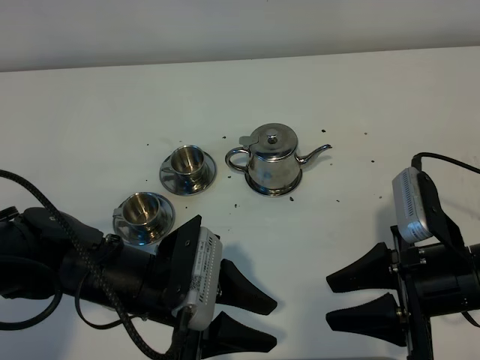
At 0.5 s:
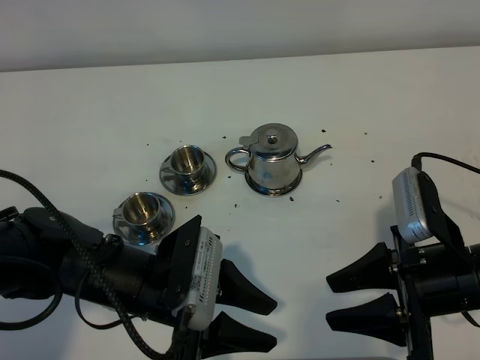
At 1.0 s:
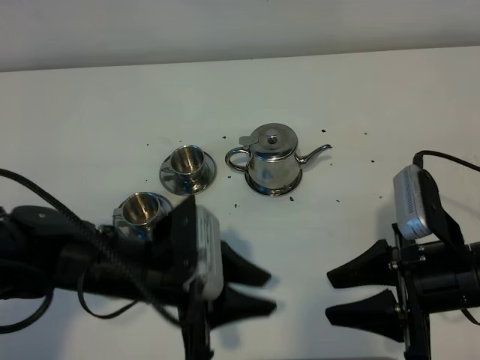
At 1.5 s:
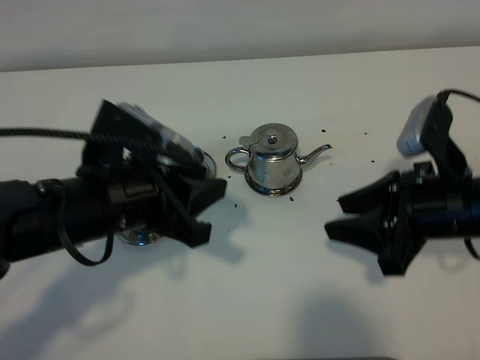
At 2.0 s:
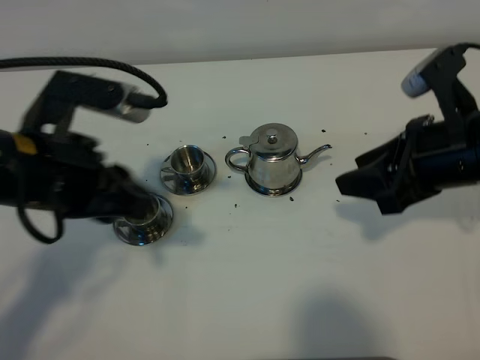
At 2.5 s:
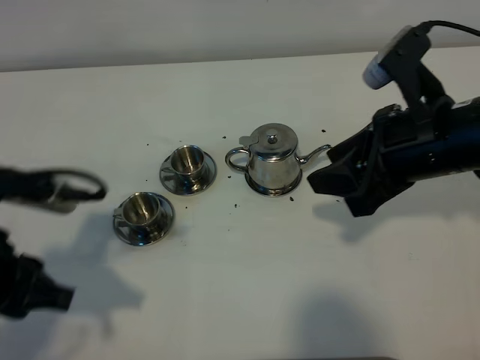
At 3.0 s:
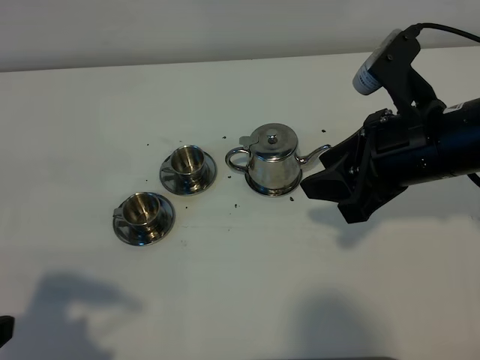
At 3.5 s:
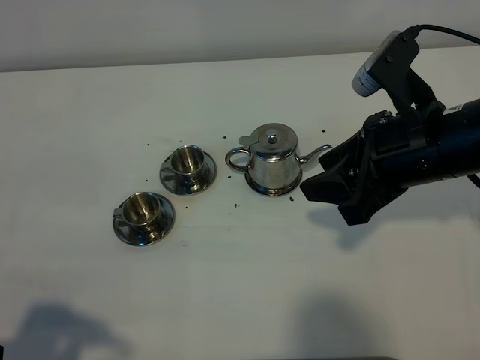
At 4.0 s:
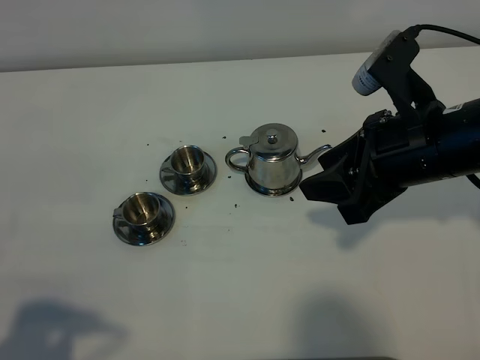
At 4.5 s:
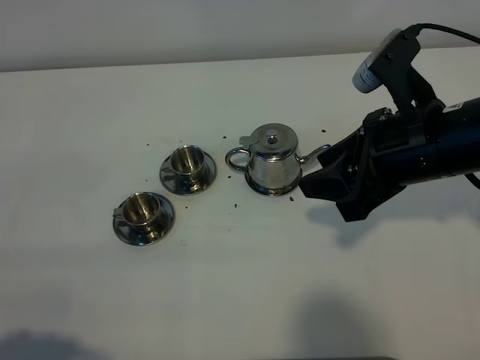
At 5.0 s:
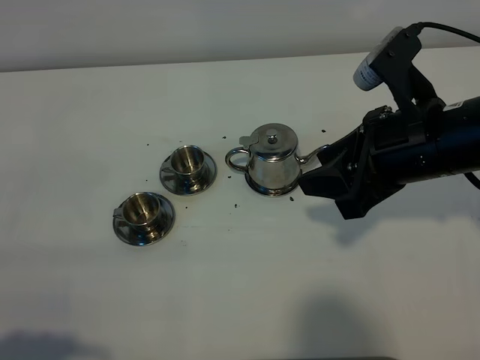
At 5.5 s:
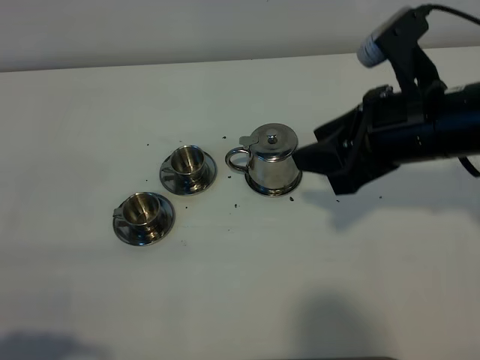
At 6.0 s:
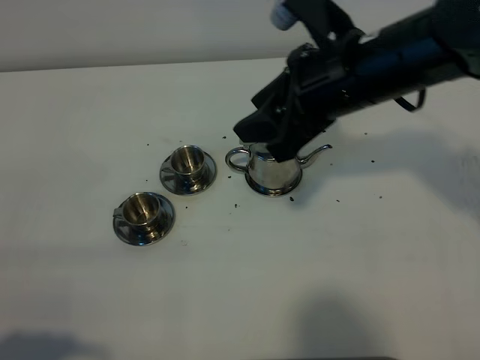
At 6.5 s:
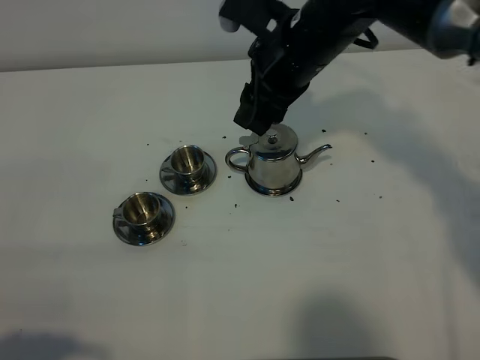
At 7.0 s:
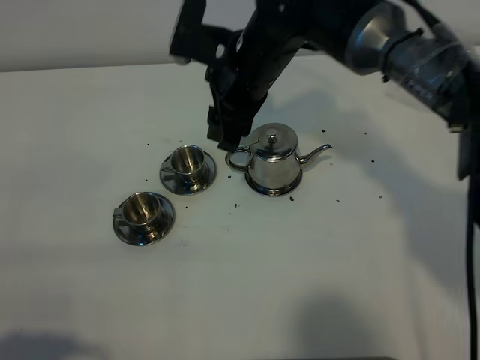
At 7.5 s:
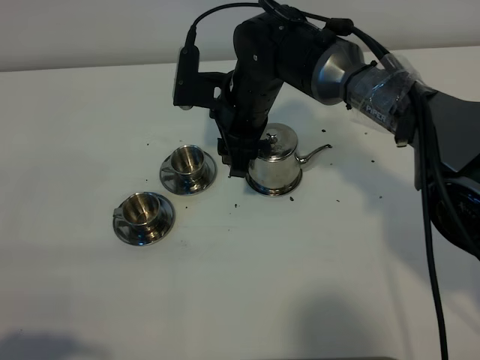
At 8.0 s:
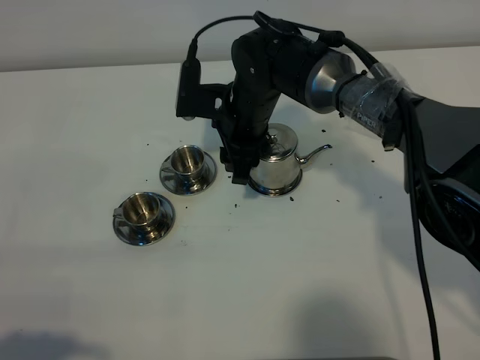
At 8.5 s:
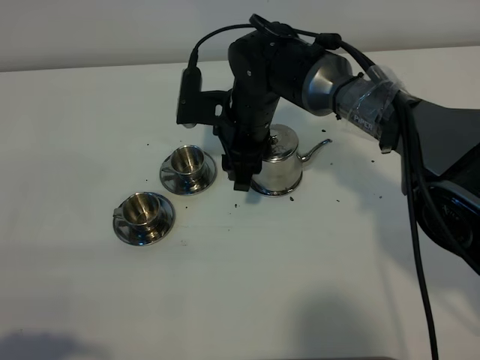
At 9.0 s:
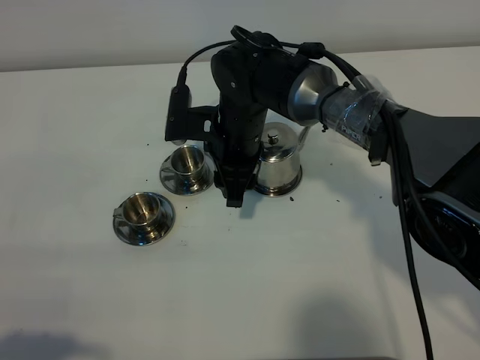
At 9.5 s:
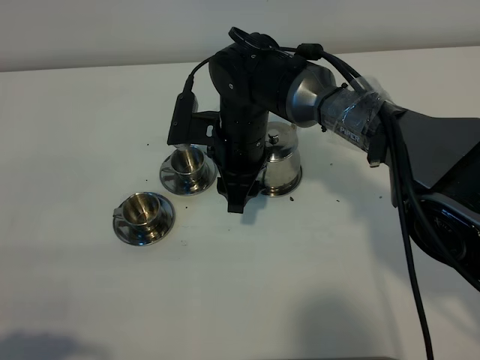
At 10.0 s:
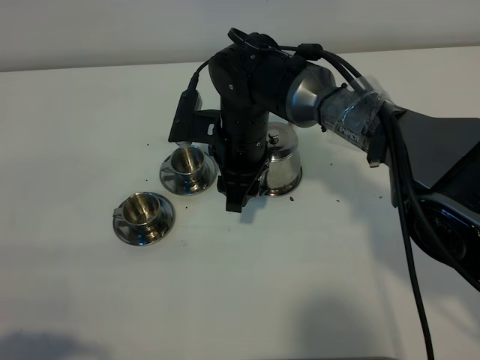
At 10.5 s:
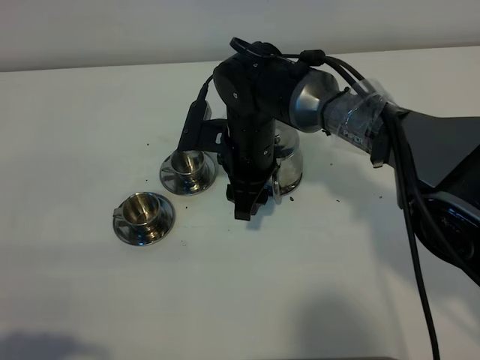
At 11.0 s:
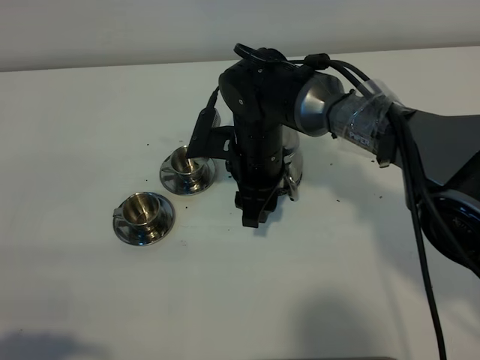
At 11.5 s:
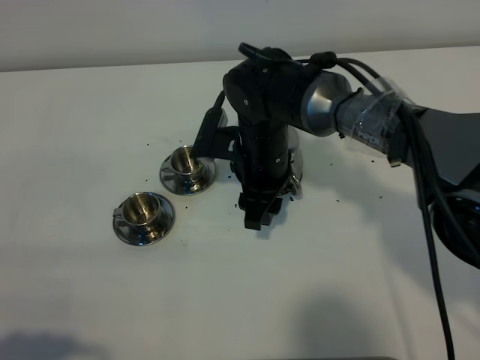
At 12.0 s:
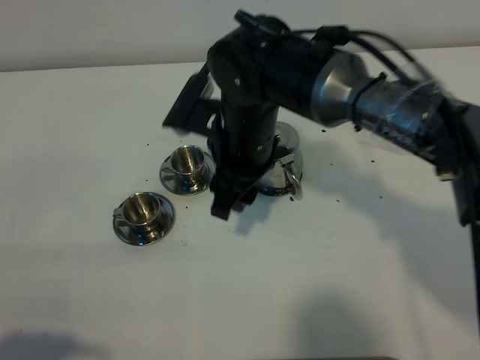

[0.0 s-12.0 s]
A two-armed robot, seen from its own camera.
Task of the whole recording: grasp the stainless steel teapot and pour the tea into the two stainless steel teacups one by one, put the stainless steel teapot back in its original place.
0.0 to 2.0 s: The right gripper is displaced forward and upward by about 10 cm; the left gripper travels upward, to the left and forward by roughly 15 cm.
2.0 to 4.0 s: The left gripper travels backward and to the left by some 20 cm.
4.0 to 6.0 s: The right gripper shifts approximately 10 cm to the left and forward.
6.0 to 8.0 s: The right gripper is displaced downward, to the left and forward by some 20 cm.
8.0 to 10.0 s: There are only small adjustments of the grippers.
10.0 to 12.0 s: The right gripper goes some 5 cm upward.

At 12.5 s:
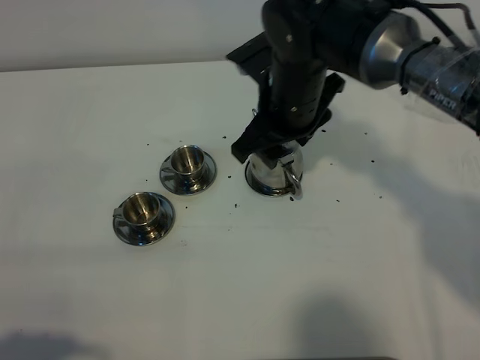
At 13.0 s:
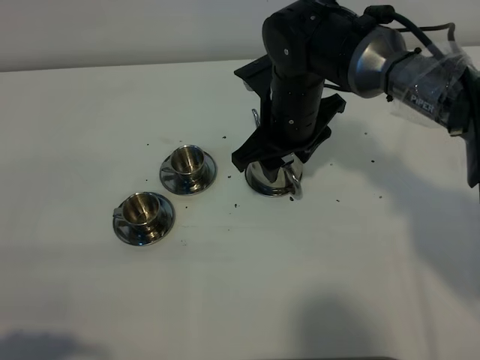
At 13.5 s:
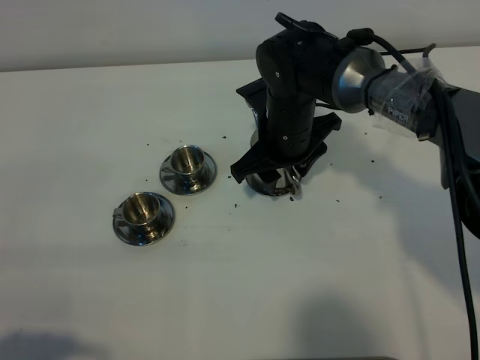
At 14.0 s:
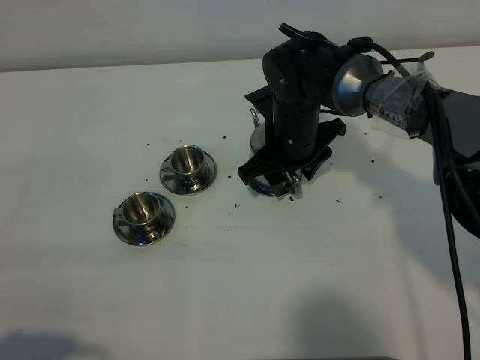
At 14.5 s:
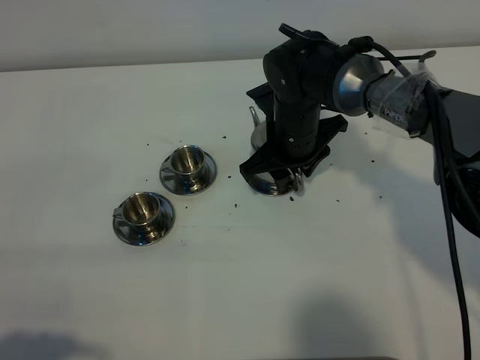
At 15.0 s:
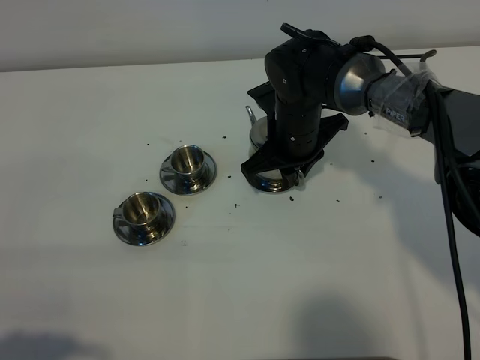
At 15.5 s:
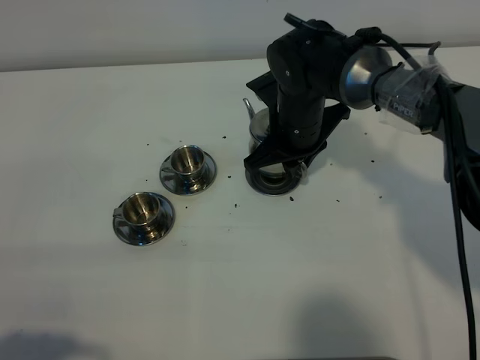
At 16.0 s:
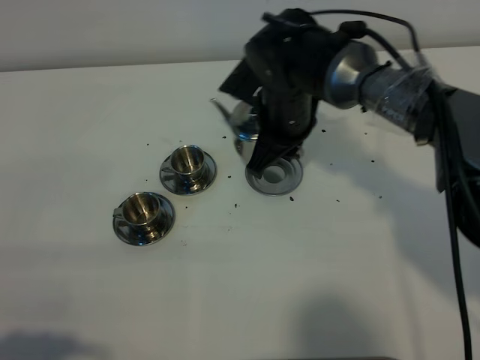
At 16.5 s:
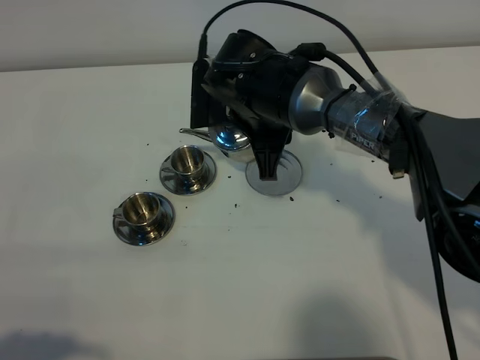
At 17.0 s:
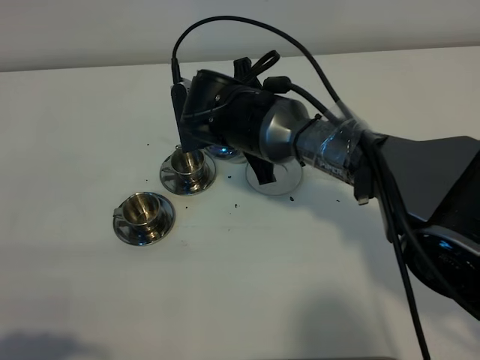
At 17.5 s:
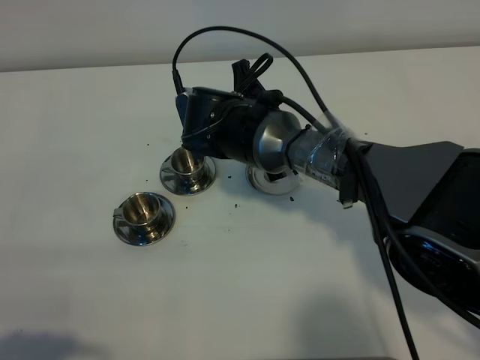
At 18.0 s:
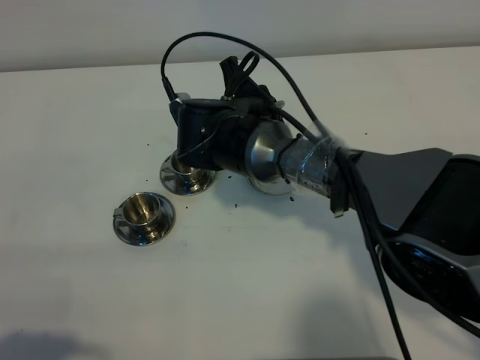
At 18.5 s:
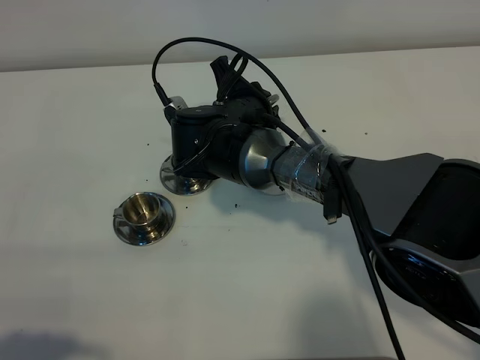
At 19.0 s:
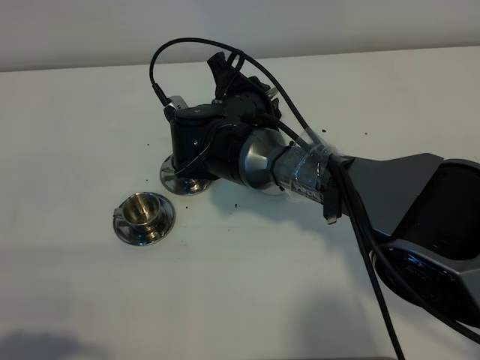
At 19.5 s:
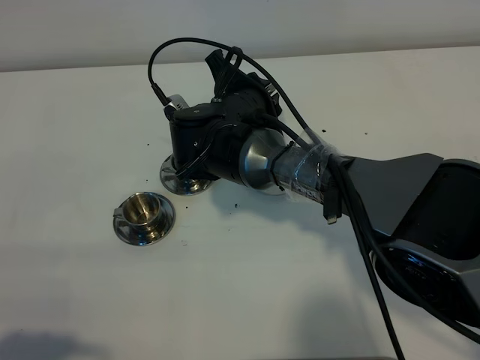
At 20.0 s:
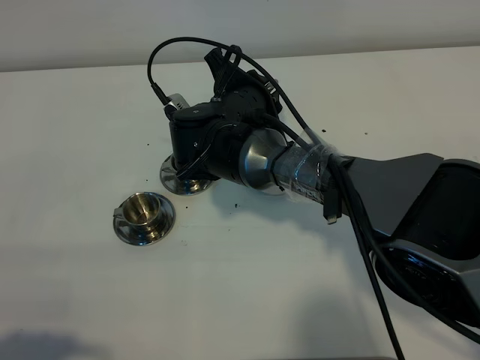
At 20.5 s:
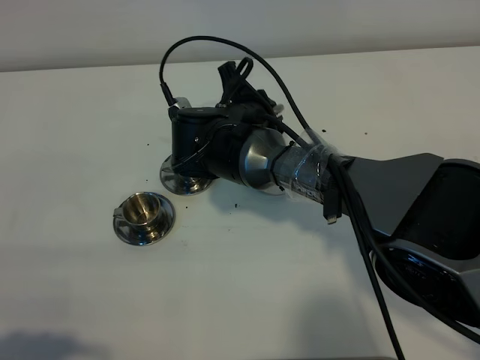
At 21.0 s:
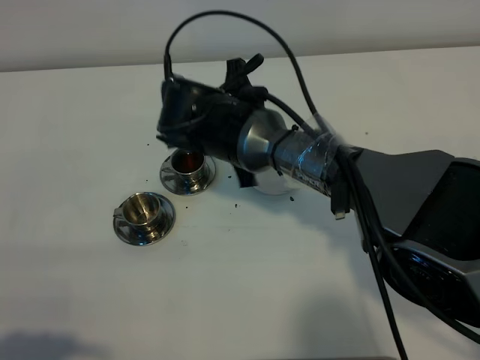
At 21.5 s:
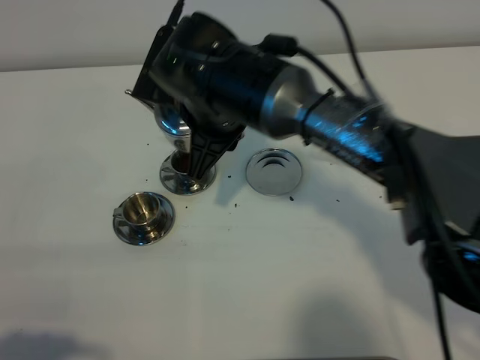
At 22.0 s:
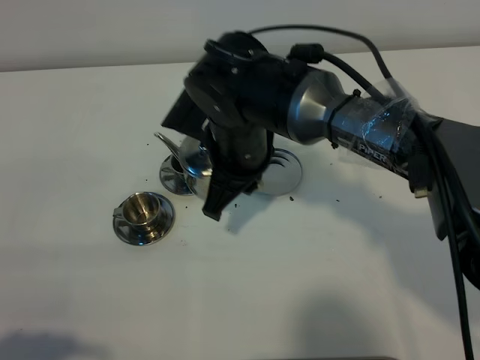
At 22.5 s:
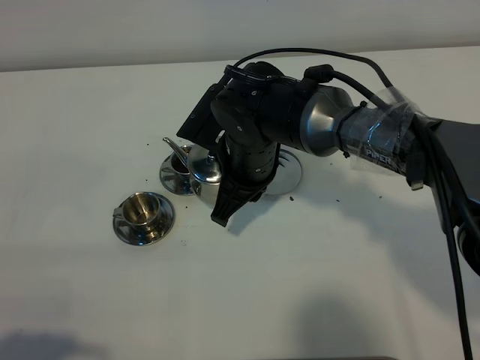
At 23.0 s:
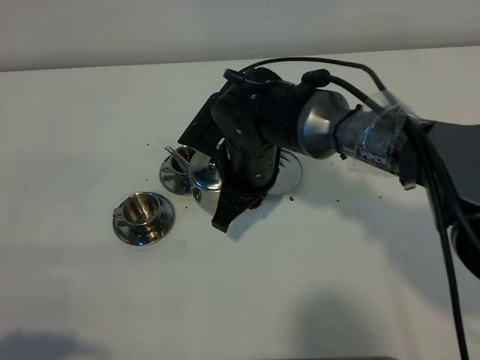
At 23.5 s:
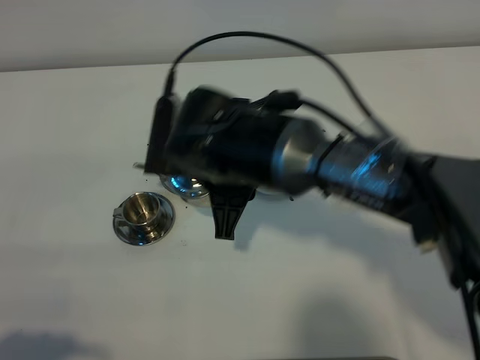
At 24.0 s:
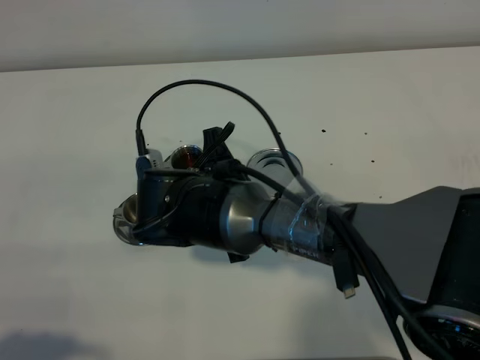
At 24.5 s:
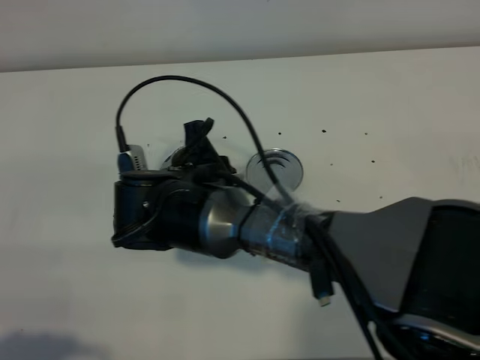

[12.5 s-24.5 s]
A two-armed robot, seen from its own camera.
Task of the whole recording: grasp the stainless steel teapot and pour the tea into the two stainless steel teacups one by one, put the stainless steel teapot back in its original place.
Step, 12.5 to 15.5 s: Pick up the teapot with the right gripper.
Step, 16.0 to 20.5 s: Pour tea into the teacup with the right gripper.
12.5 to 14.5 s: The right gripper moves downward, approximately 10 cm.
14.5 to 16.5 s: The right gripper goes some 5 cm upward, and closes.
18.5 to 20.5 s: The grippers stay close to where they were, moving slightly.
20.5 to 22.5 s: The right gripper reaches some 10 cm upward, then returns.
22.5 to 24.5 s: The right gripper moves to the left and backward, approximately 10 cm.

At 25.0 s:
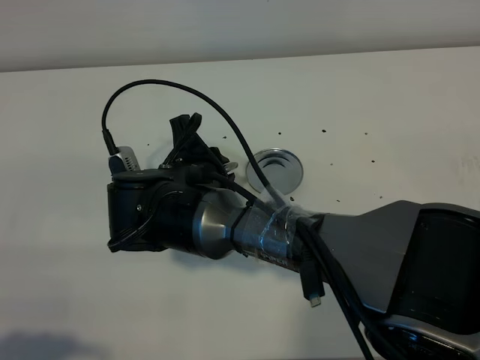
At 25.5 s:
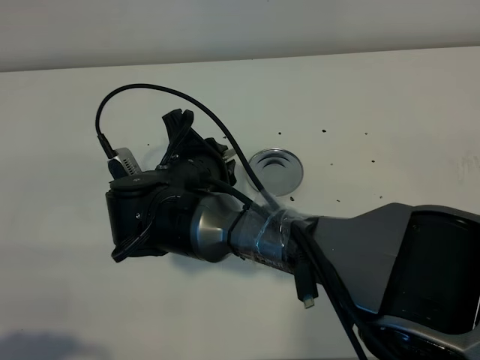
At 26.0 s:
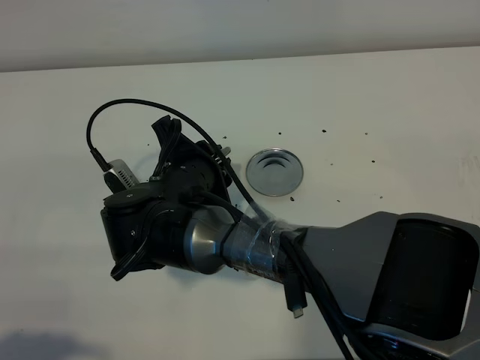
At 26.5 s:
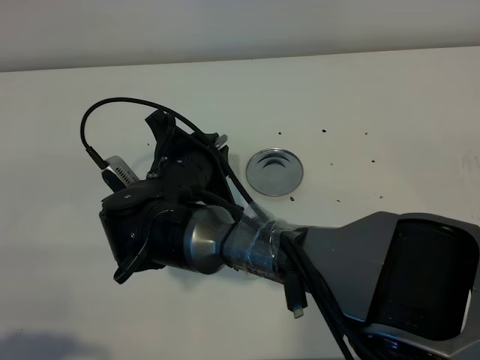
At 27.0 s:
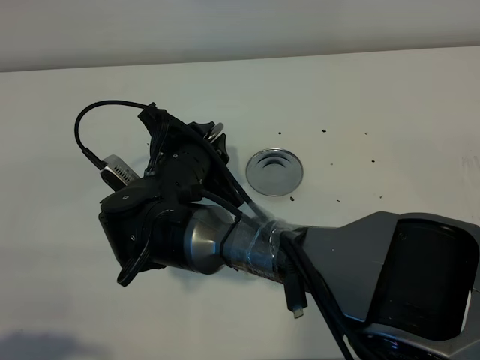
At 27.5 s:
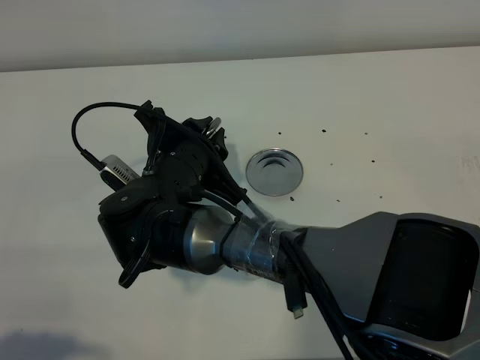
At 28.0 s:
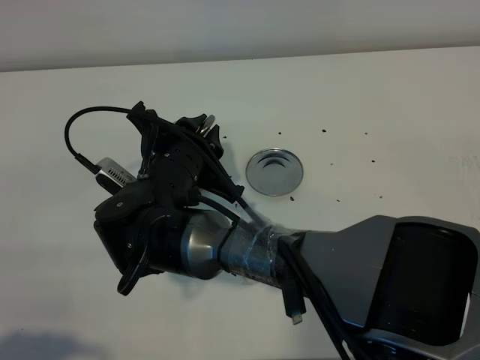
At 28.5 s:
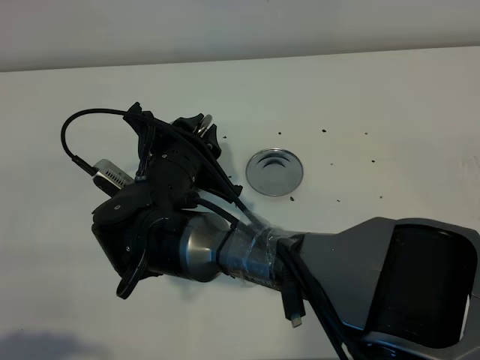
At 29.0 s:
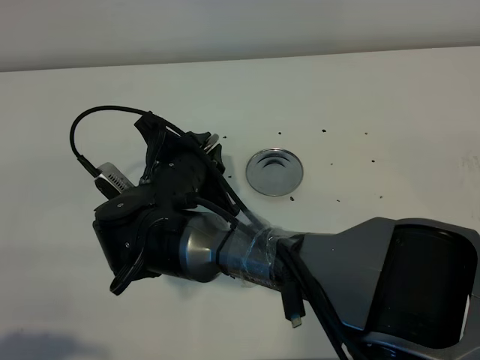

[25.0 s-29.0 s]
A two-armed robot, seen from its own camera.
Task of the whole recording: grasp the stainless steel teapot and pour the tea into the two stainless steel teacups one by one, put the stainless steel teapot back in its original place.
27.0 to 29.0 s: There are only small adjustments of the grippers.
